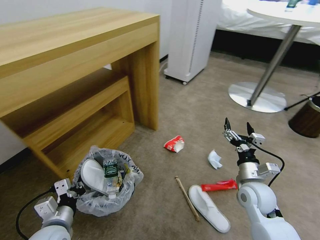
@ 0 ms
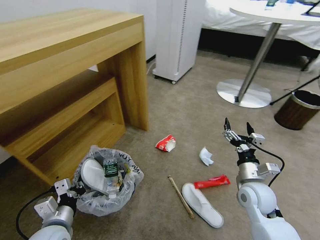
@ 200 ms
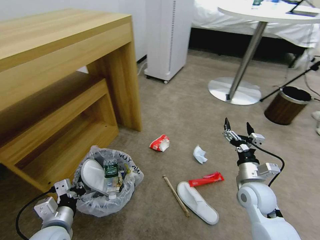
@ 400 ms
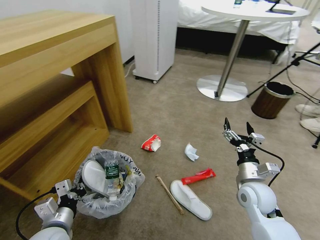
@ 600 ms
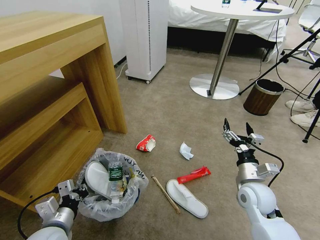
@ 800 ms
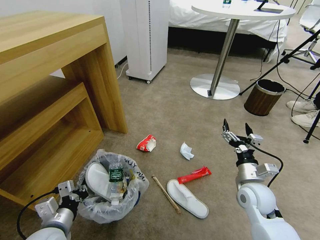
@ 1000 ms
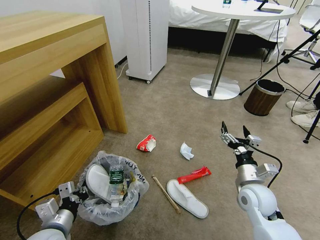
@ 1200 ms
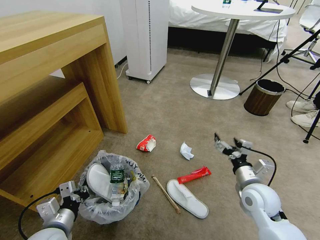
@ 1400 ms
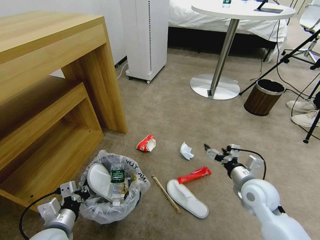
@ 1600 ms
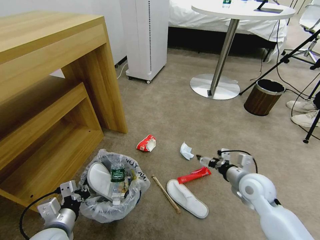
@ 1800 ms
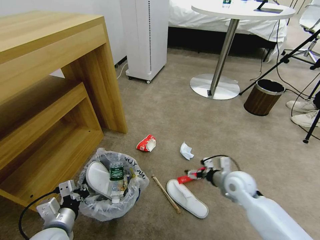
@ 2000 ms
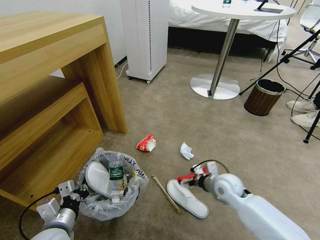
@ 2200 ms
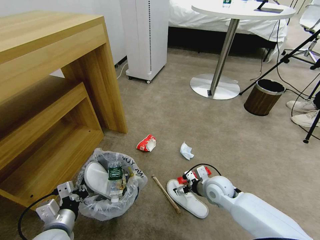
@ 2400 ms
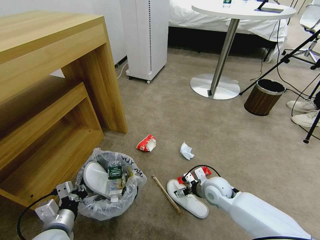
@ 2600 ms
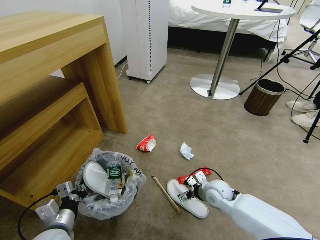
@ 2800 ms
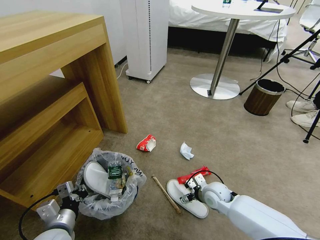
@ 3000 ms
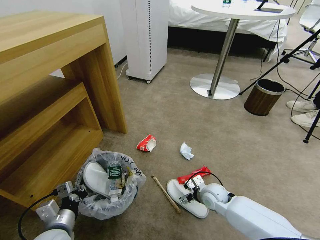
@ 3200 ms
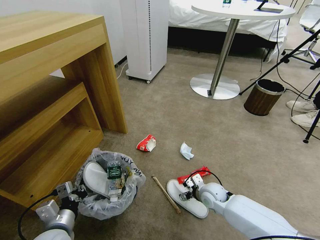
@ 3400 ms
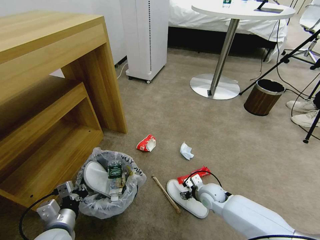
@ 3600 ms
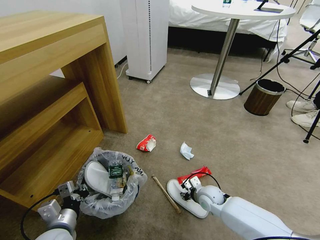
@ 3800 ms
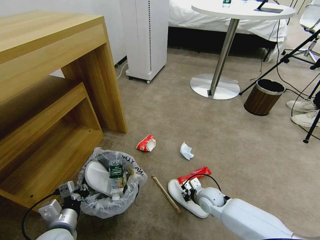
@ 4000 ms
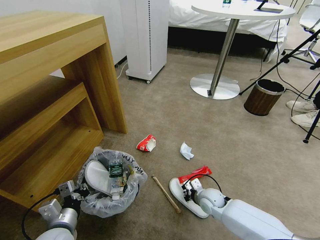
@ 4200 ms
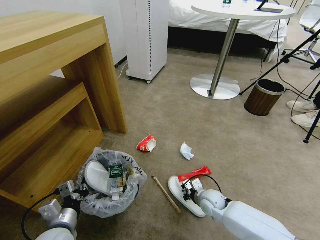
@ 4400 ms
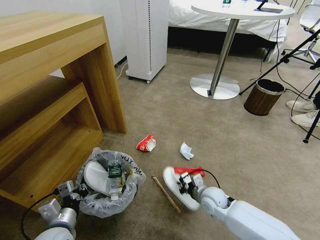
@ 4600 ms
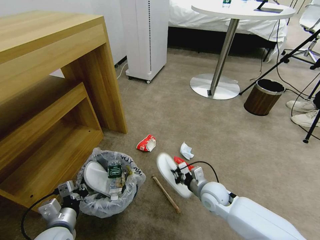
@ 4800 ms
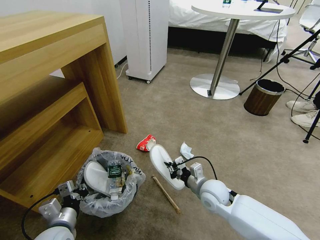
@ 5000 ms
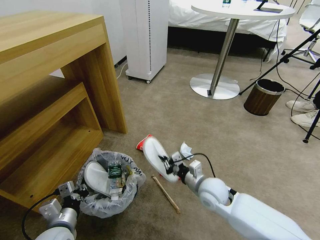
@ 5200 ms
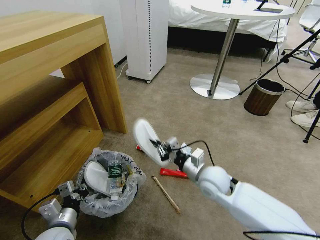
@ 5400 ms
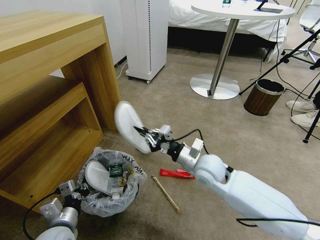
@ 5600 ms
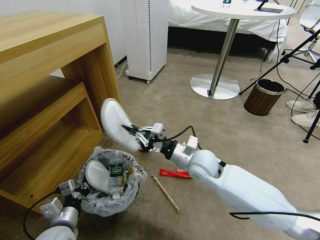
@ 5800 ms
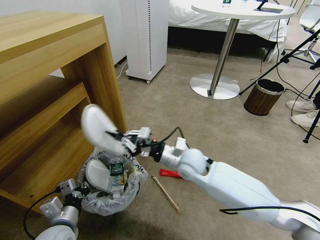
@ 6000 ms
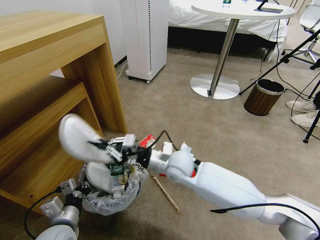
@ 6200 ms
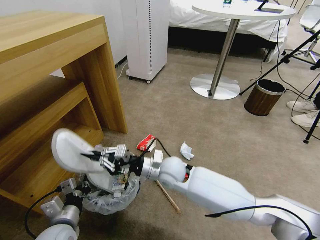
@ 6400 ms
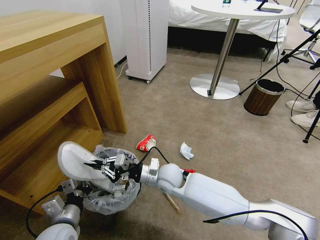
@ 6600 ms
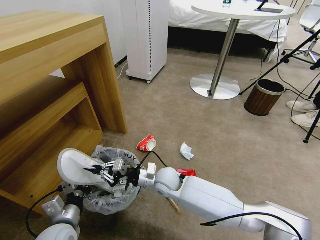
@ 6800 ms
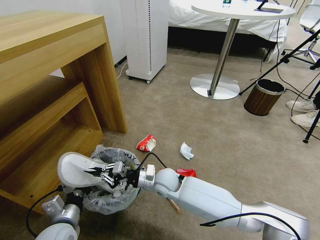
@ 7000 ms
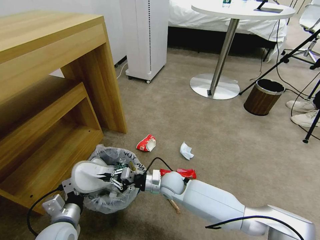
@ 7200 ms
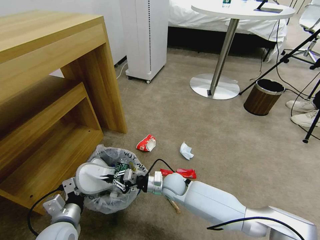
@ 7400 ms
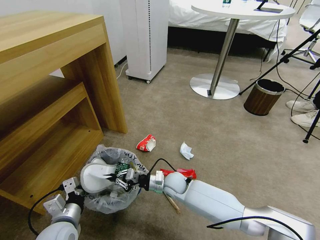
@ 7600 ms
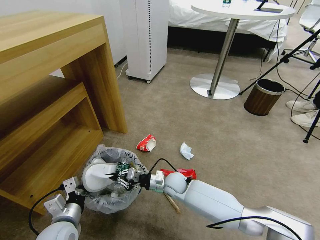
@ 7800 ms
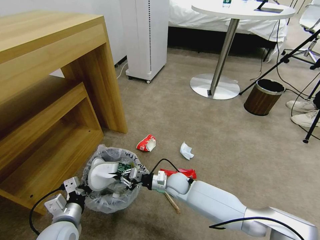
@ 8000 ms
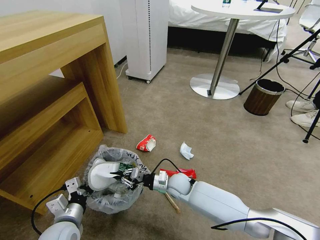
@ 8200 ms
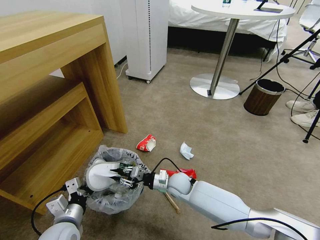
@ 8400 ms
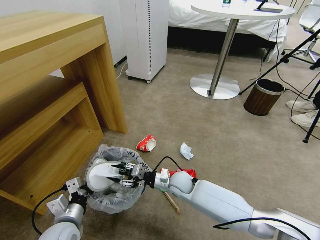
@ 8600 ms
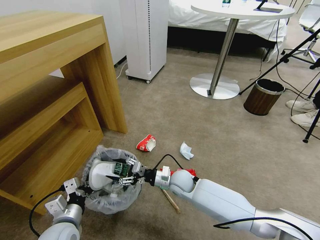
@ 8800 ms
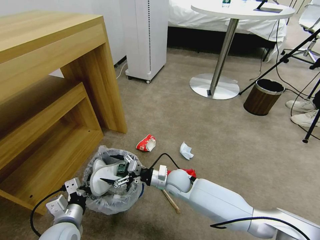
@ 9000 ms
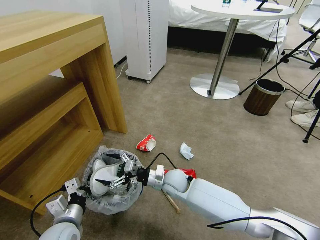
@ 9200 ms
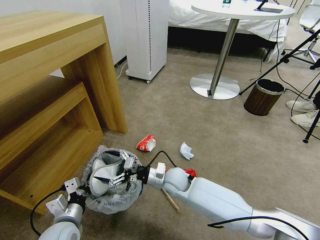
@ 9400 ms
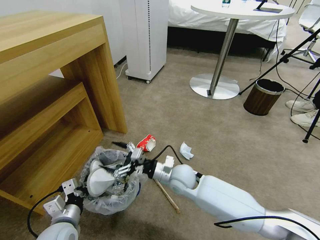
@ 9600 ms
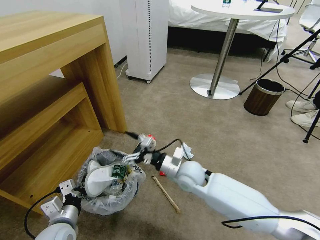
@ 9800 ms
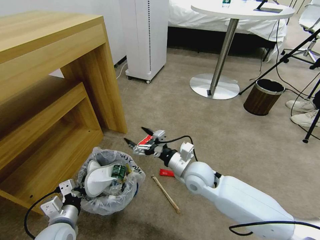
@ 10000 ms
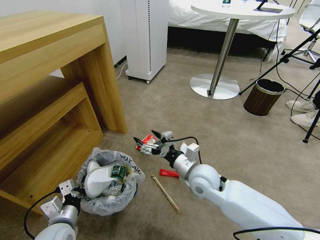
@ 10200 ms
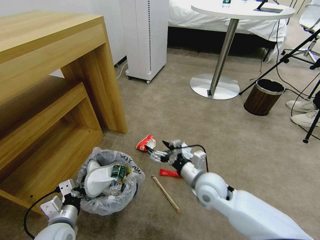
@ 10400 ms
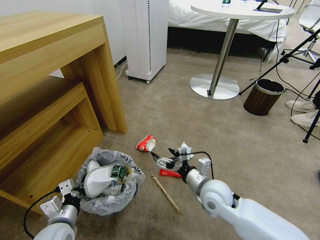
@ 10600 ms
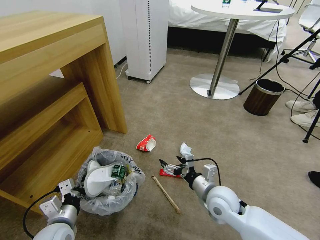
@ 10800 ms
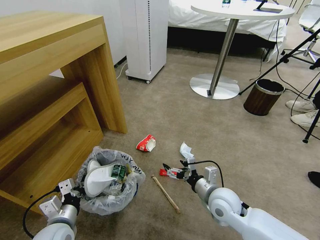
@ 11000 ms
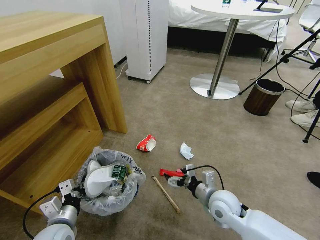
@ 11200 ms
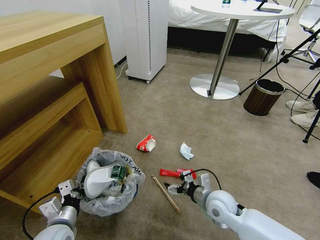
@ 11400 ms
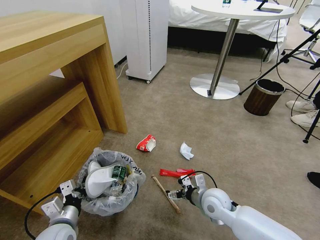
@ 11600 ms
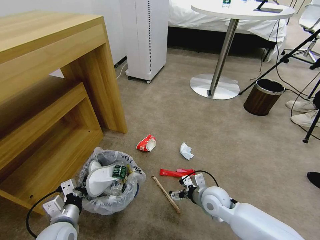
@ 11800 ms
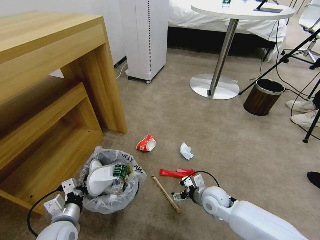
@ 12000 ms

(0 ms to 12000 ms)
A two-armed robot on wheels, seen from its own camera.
Task of the whole recording: Pick up the trash bin and place the garbage on the floor into it.
1600 ms - 3000 ms: The right gripper goes approximately 15 cm downward, to the left and forward.
3000 ms - 4400 ms: The right gripper is displaced downward by some 5 cm, and closes.
4400 ms - 6000 ms: The right gripper shifts roughly 25 cm upward and to the left.
6000 ms - 7600 ms: The right gripper shifts roughly 15 cm downward.
7600 ms - 9000 ms: The right gripper opens its fingers.
9000 ms - 10400 ms: The right gripper shifts roughly 15 cm upward, to the right and backward.
10400 ms - 12000 ms: The right gripper is displaced downward by some 10 cm.

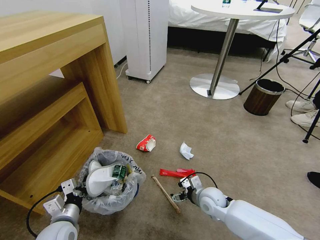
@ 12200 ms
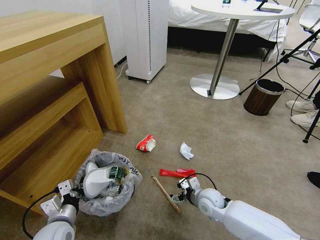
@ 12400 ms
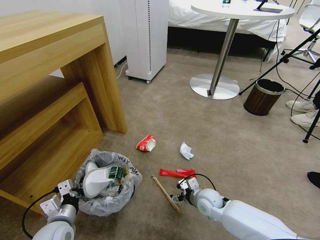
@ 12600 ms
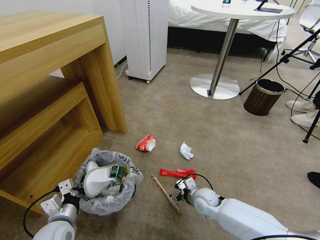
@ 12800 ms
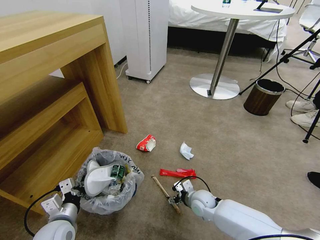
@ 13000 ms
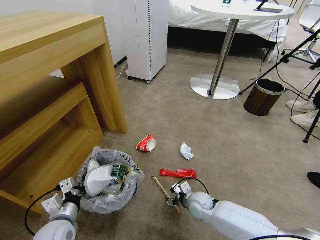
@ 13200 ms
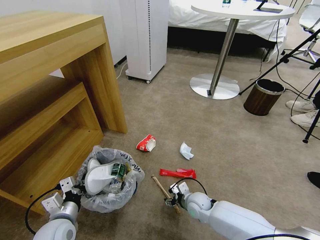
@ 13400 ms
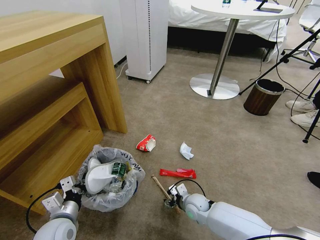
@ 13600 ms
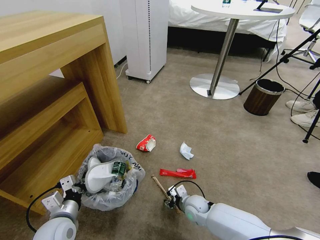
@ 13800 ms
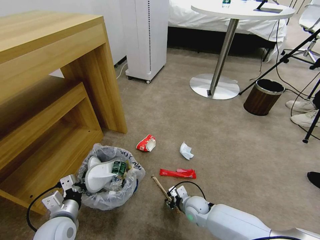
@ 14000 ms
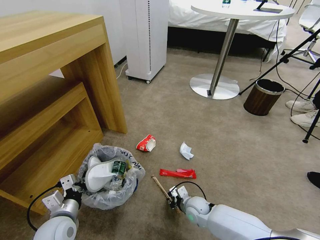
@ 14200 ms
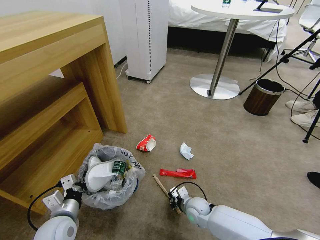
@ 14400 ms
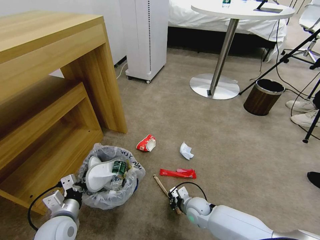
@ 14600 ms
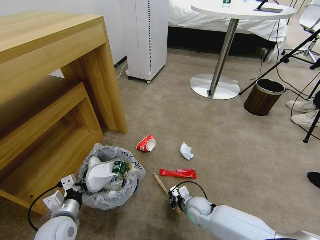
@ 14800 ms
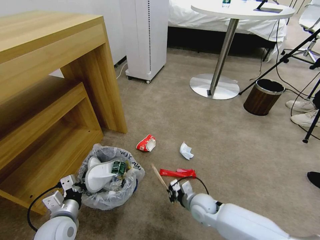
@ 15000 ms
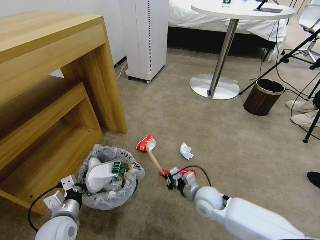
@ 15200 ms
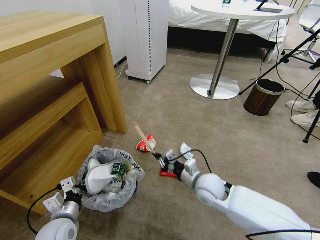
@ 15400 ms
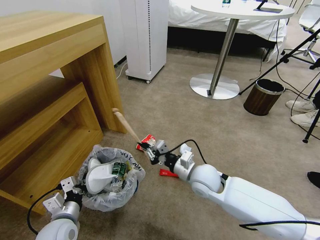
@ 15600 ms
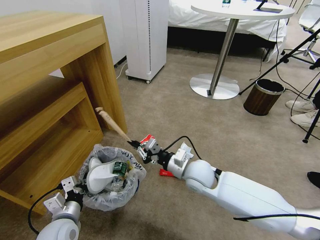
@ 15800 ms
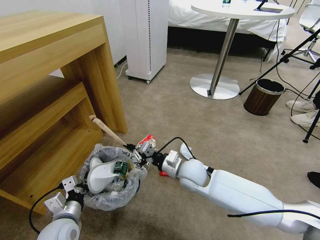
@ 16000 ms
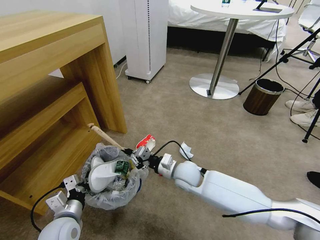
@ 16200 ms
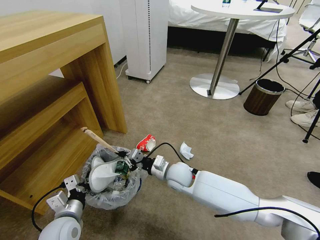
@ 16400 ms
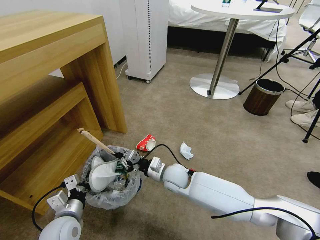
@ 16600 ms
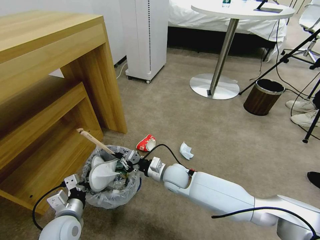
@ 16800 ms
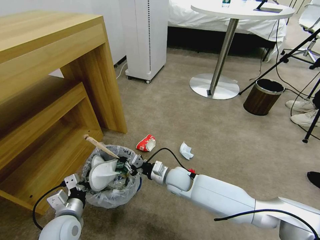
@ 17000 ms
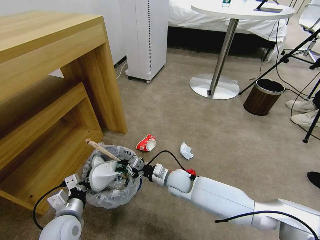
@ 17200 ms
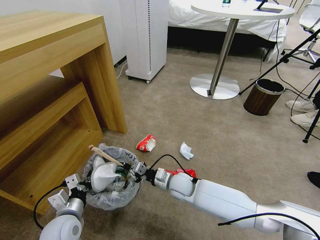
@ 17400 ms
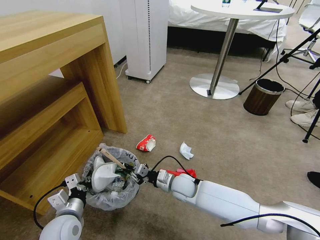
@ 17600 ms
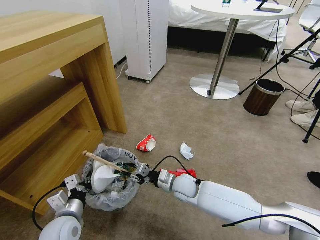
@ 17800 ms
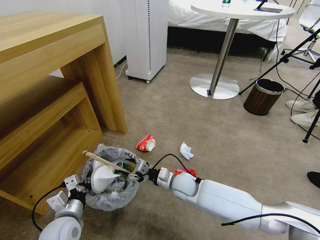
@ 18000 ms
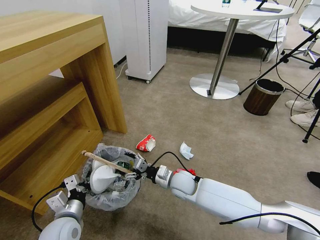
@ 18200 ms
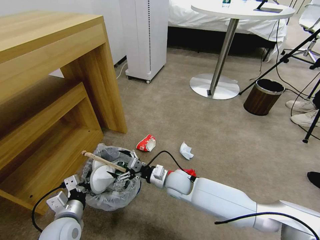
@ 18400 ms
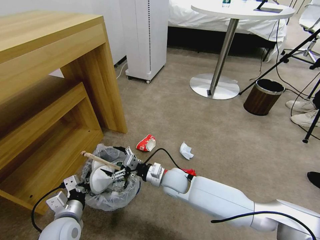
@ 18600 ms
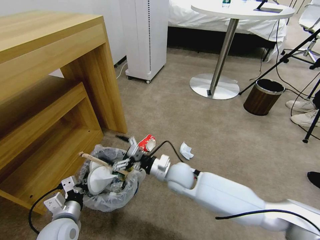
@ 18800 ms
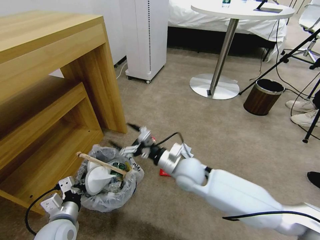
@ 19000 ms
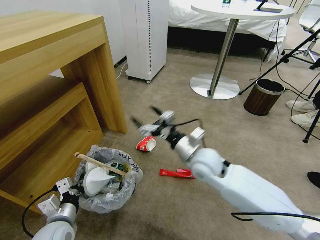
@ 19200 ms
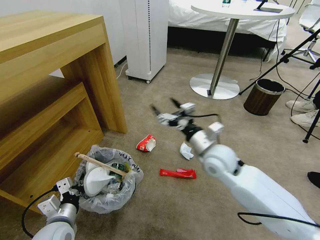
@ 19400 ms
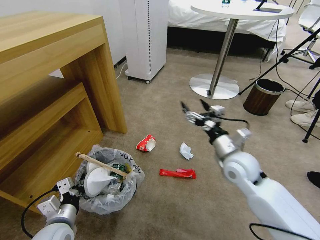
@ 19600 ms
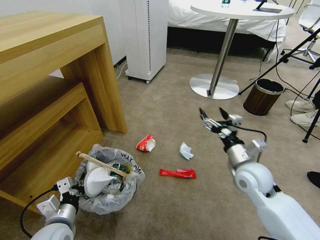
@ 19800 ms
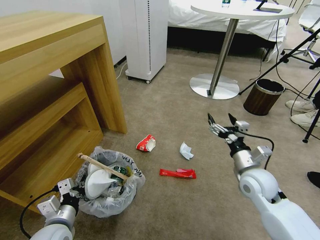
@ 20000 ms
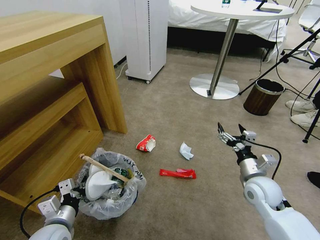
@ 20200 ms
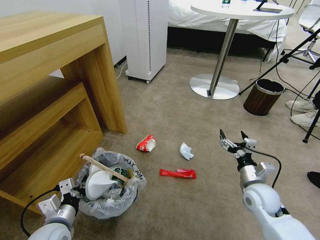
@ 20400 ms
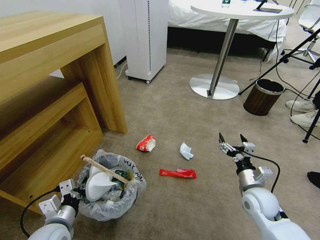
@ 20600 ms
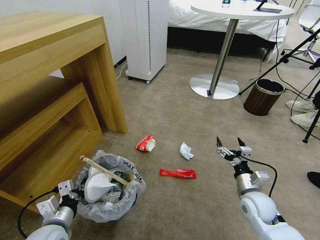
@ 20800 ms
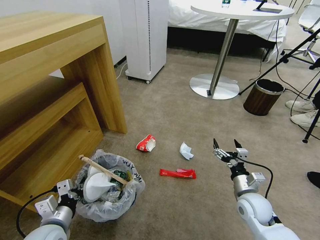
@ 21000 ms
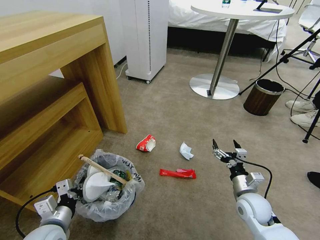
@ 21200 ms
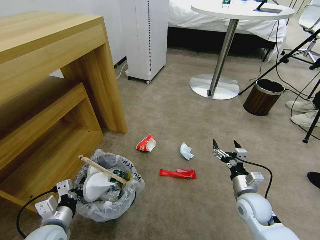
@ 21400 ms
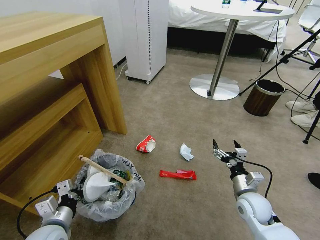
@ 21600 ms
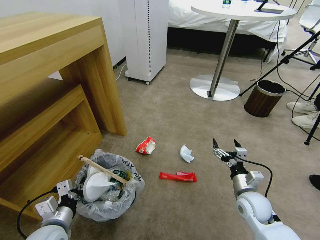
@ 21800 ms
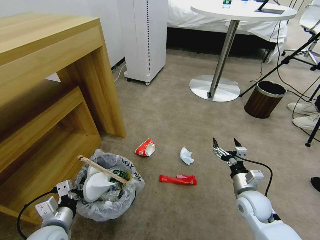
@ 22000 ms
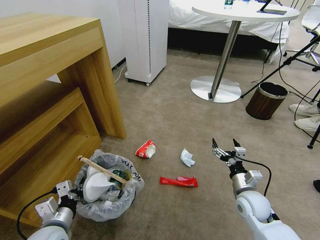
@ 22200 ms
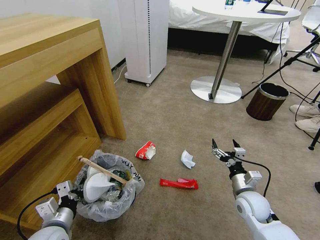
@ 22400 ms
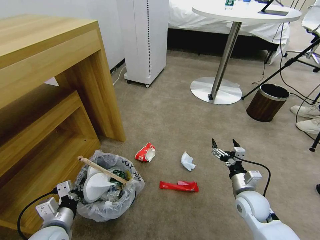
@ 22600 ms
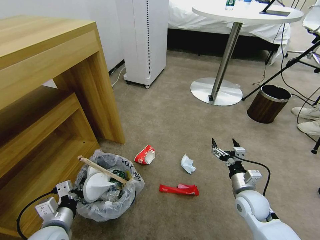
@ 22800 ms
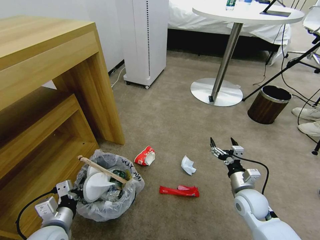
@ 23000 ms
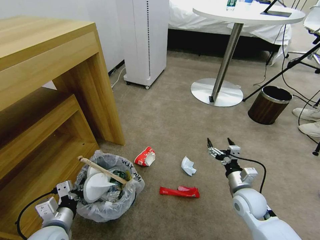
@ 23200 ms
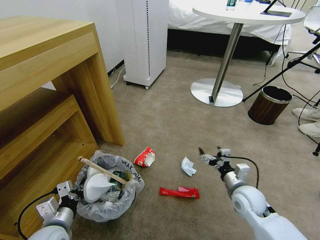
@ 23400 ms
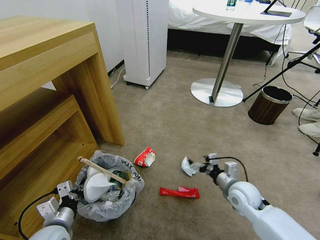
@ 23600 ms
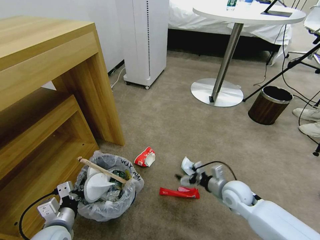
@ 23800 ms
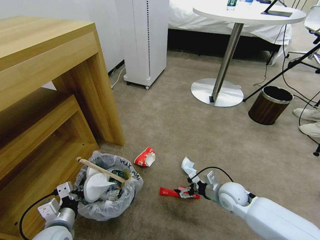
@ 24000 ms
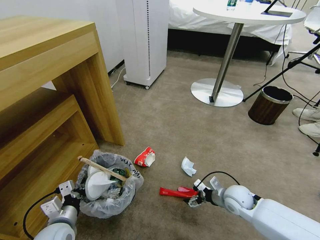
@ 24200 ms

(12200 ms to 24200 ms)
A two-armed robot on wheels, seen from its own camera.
Task of the whole recording: Pick up the trash bin and place the garbage on the floor into it.
12200 ms - 13800 ms: The right gripper travels downward by roughly 5 cm, and closes its fingers.
13800 ms - 15200 ms: The right gripper moves upward, some 10 cm, and closes its fingers.
15200 ms - 16600 ms: The right gripper is displaced to the left and forward by some 15 cm.
16600 ms - 18200 ms: The right gripper opens.
18200 ms - 19800 ms: The right gripper travels to the right and upward by roughly 25 cm.
19800 ms - 21200 ms: The right gripper heads downward and backward, covering roughly 15 cm.
